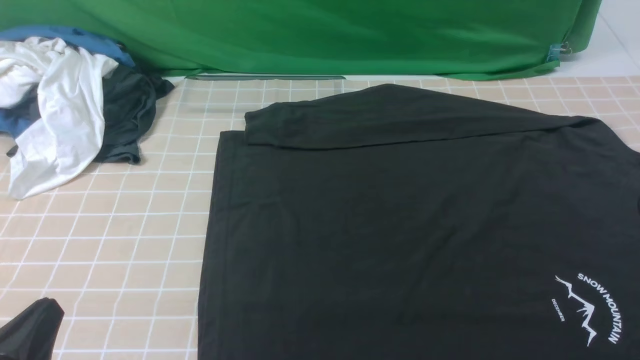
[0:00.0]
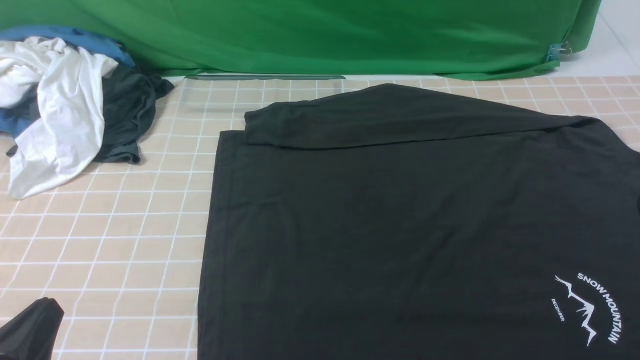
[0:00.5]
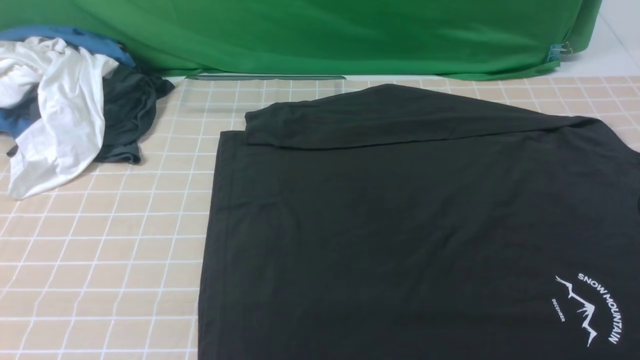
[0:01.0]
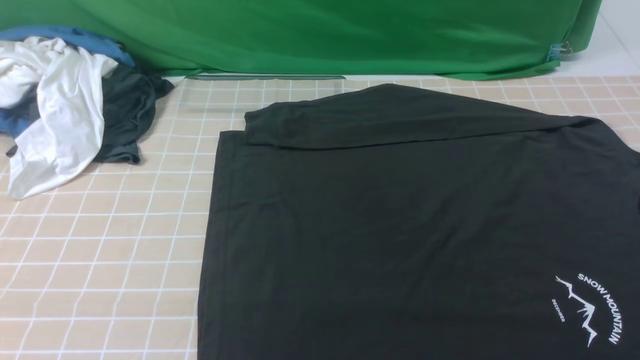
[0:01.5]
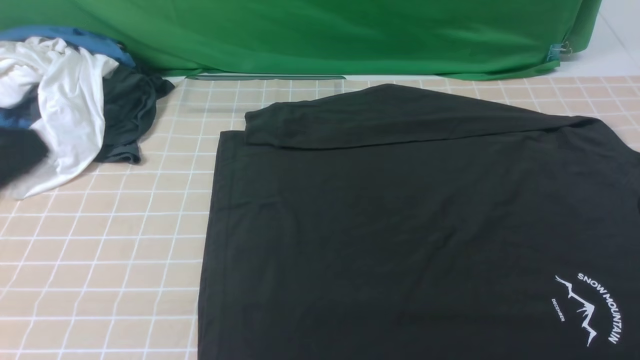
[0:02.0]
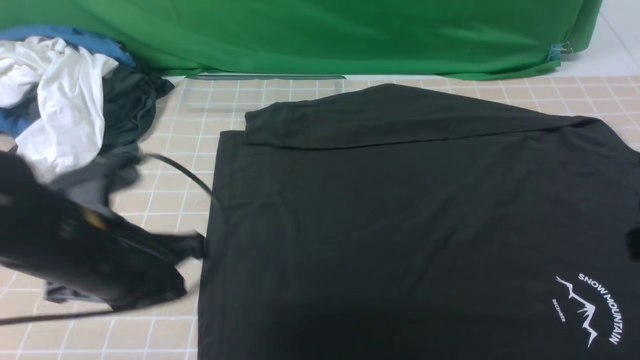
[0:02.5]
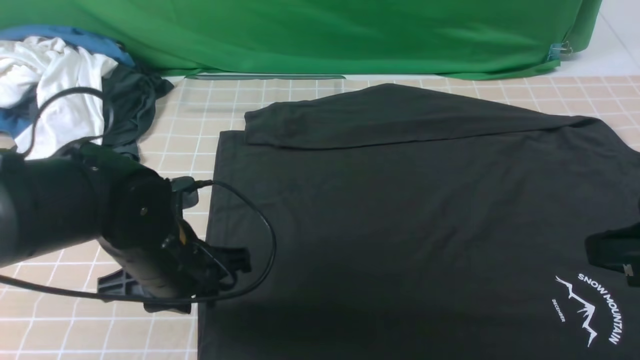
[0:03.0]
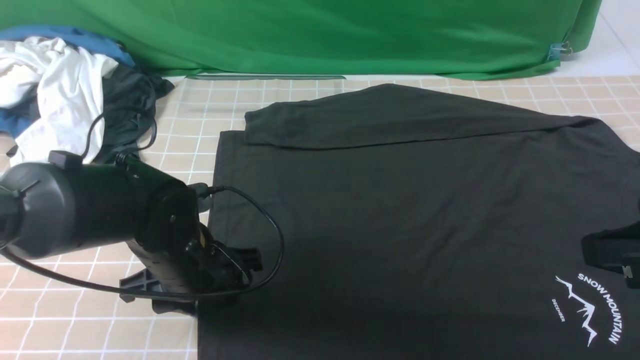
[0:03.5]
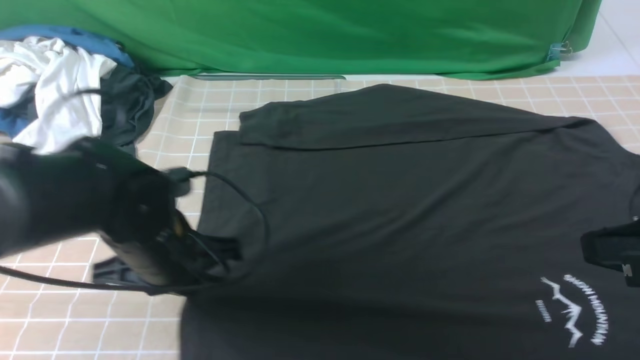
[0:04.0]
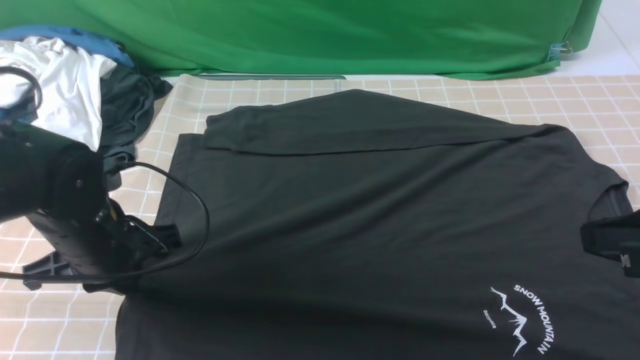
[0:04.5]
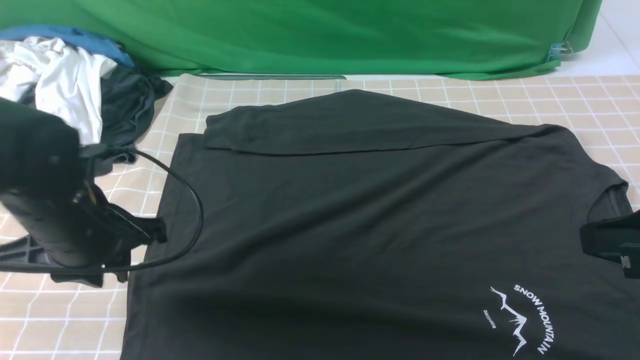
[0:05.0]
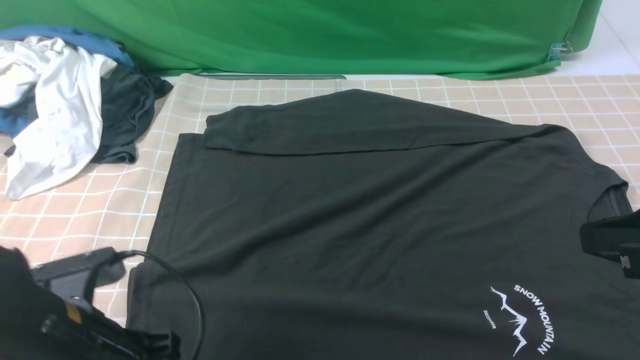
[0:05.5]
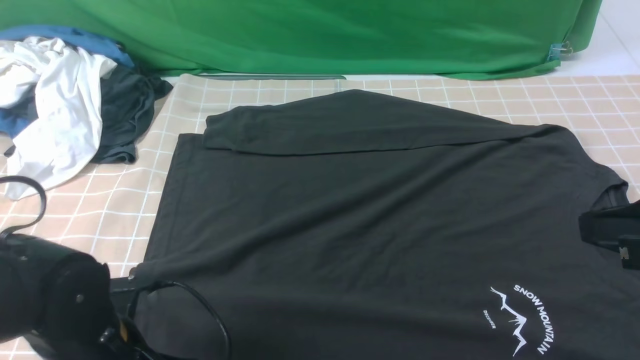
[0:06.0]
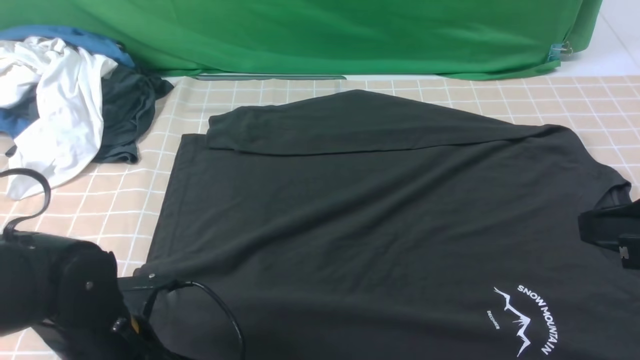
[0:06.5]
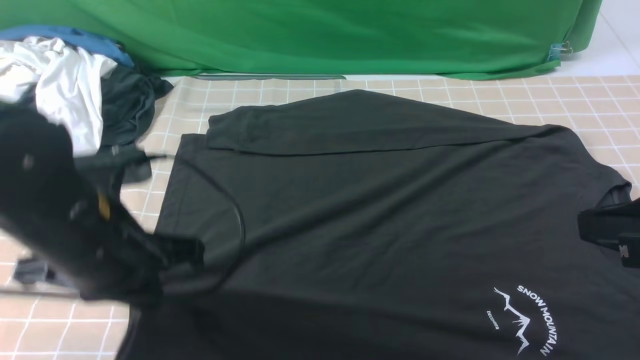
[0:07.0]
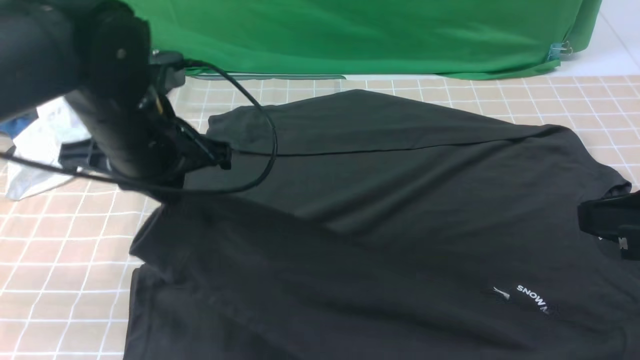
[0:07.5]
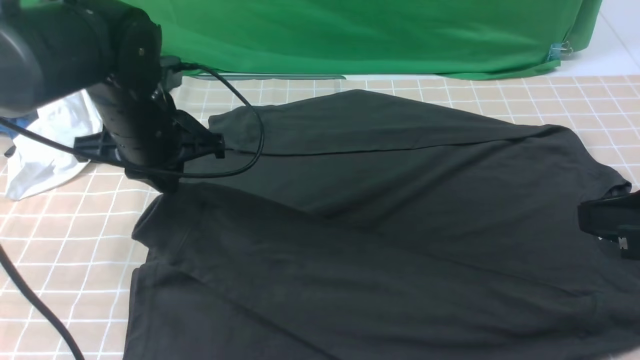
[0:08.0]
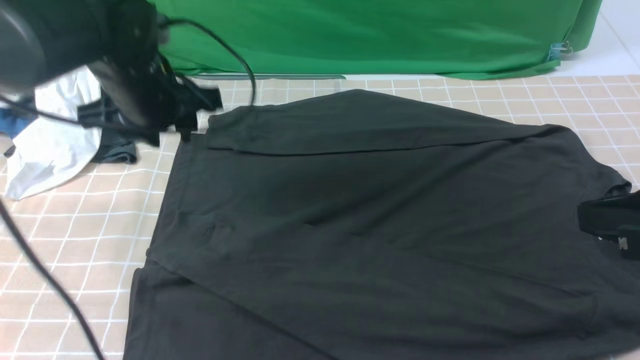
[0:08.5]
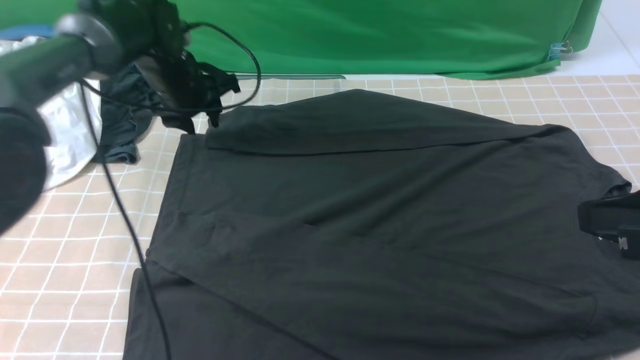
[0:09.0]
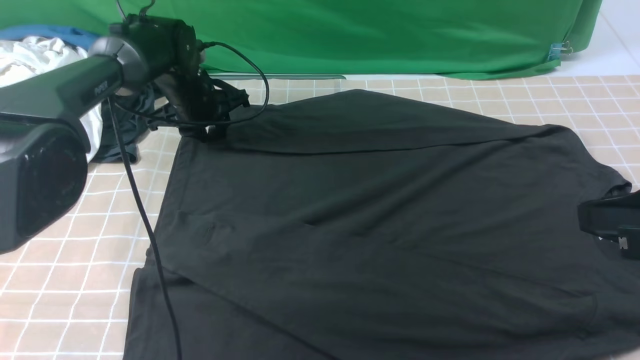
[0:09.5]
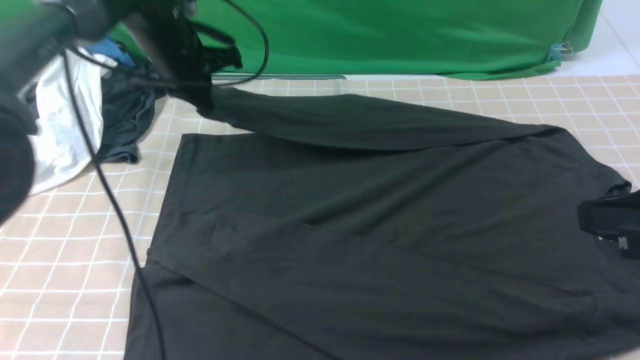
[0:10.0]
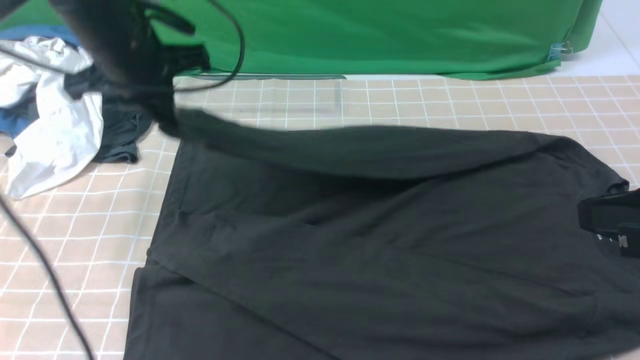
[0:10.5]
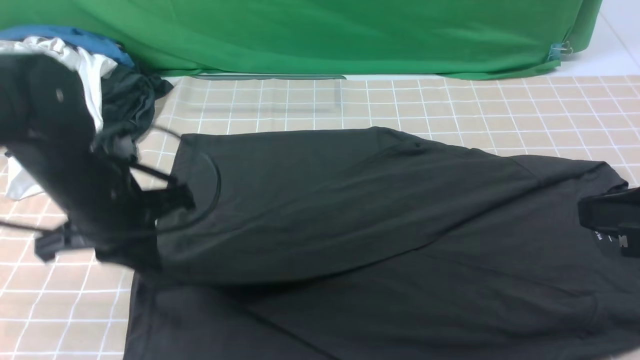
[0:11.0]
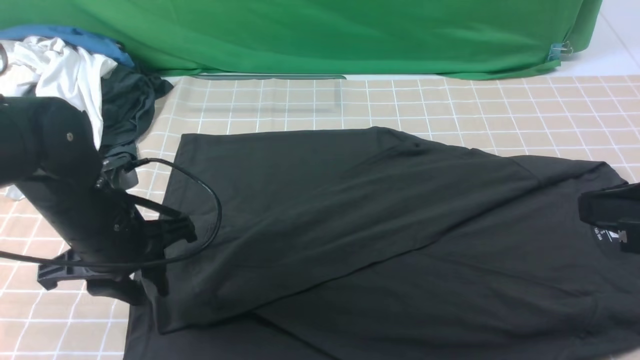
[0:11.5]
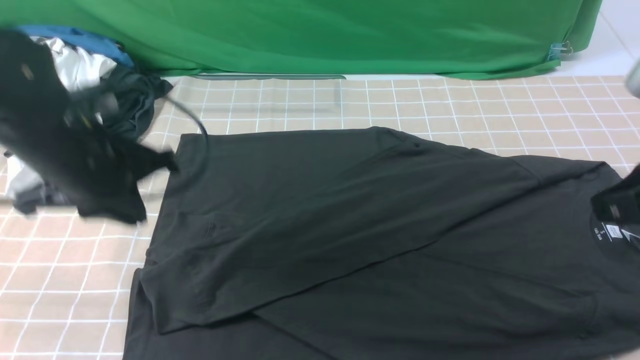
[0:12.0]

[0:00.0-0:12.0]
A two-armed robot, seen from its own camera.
Step, 0:00.0 to 0:06.0: use the left arm to clamp the cuff closest to it.
Step, 0:06.5 to 0:08.0: use the left arm to drag and place the cuff at the centered position on the left edge of the fabric.
Step, 0:08.5 to 0:09.5: use the left arm to clamp the cuff farthest from it.
Step, 0:10.0 to 0:11.5: use the left arm to drag and drop the cuff onto the cuff closest to the left arm.
0:00.0 to 0:02.0: The left gripper goes about 20 cm upward and forward.
0:02.0 to 0:04.0: The right gripper goes roughly 10 cm forward and downward, while the left gripper is displaced downward and forward by some 20 cm, and opens, then closes once more.
0:04.0 to 0:06.0: The left gripper goes about 10 cm backward, and opens up.
0:06.0 to 0:08.0: The left gripper goes about 20 cm forward and upward, and closes.
0:08.0 to 0:10.0: The left gripper heads forward, covering roughly 15 cm, and opens and closes again.
0:10.0 to 0:12.0: The left gripper shifts approximately 20 cm backward, and opens, then closes once more.

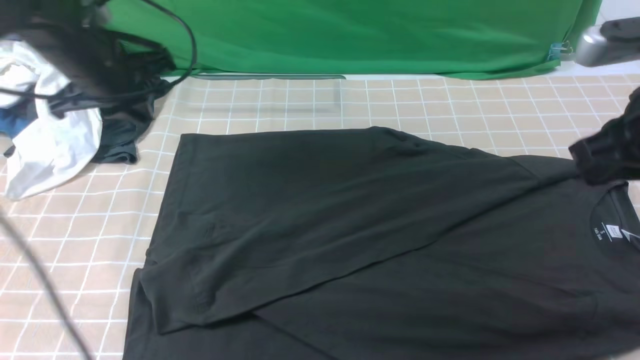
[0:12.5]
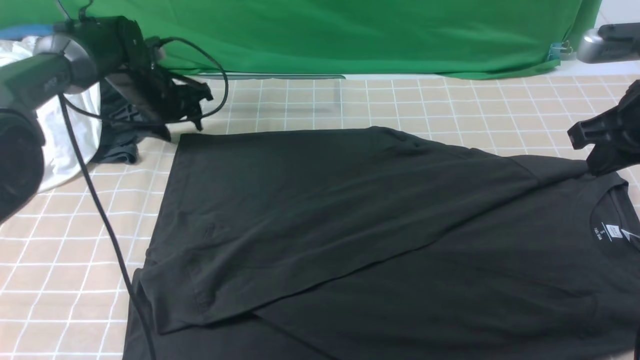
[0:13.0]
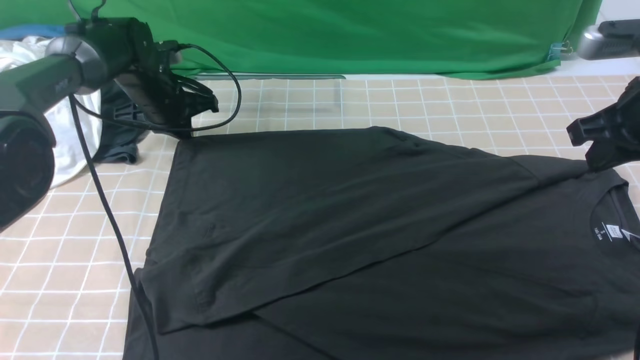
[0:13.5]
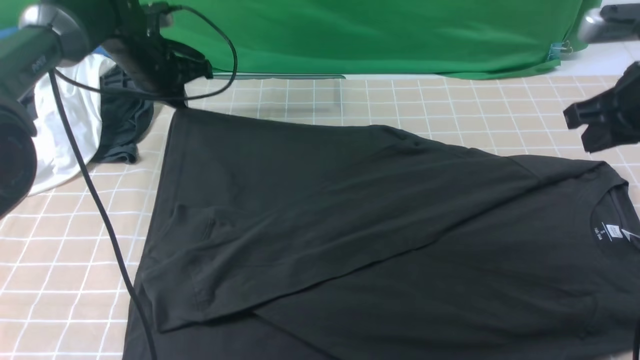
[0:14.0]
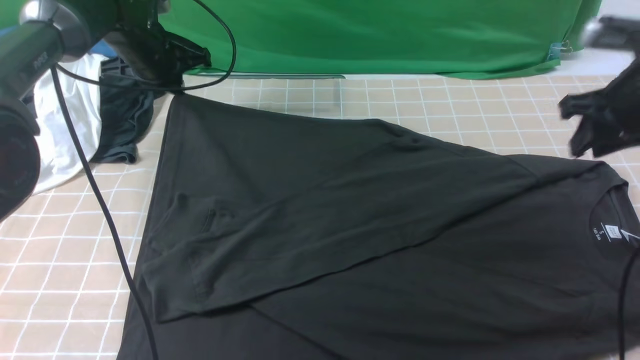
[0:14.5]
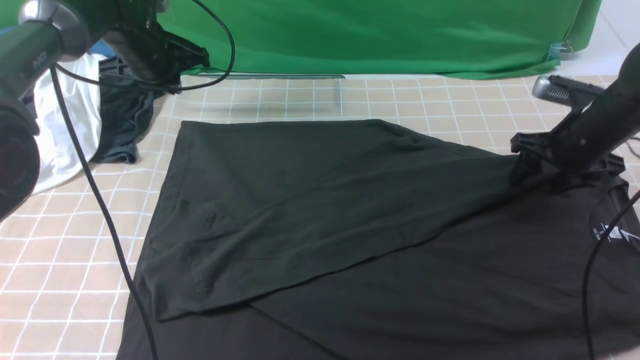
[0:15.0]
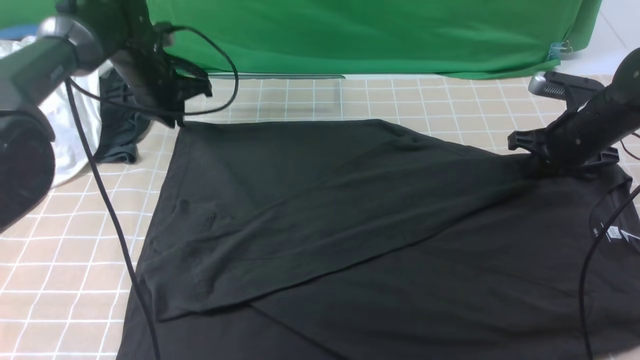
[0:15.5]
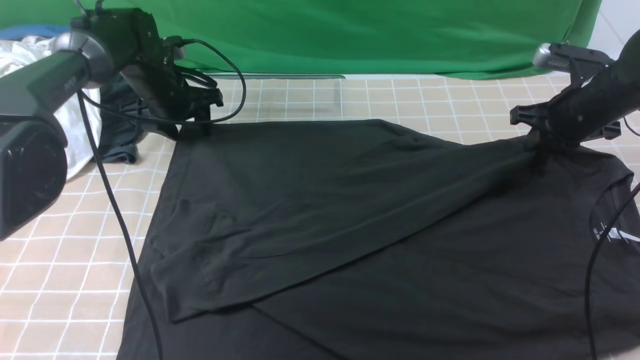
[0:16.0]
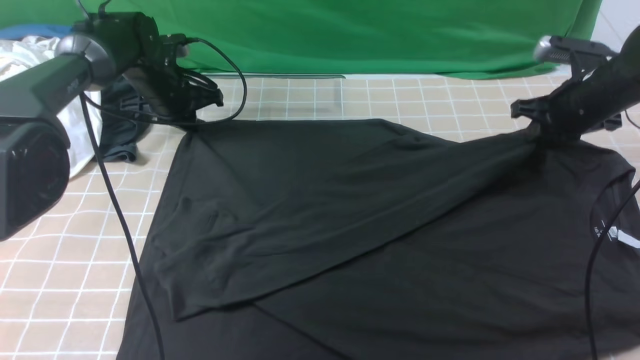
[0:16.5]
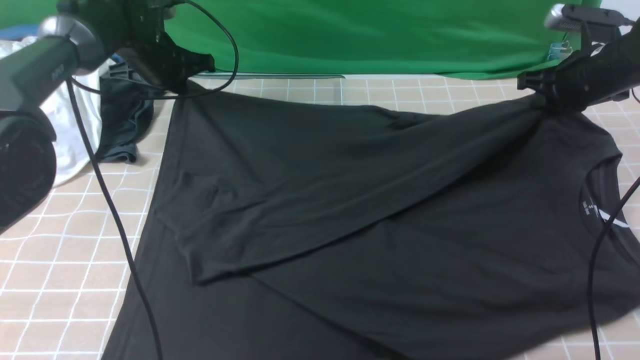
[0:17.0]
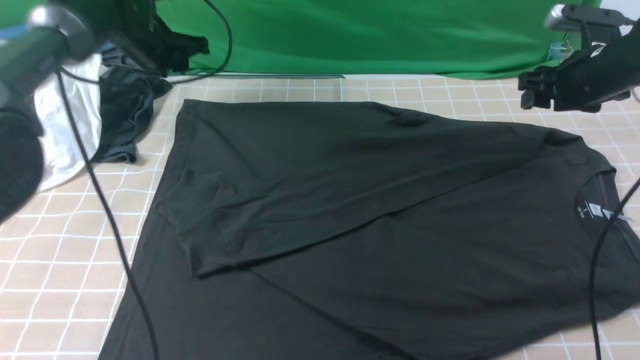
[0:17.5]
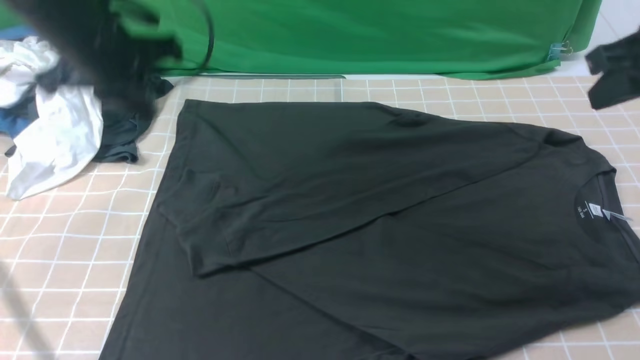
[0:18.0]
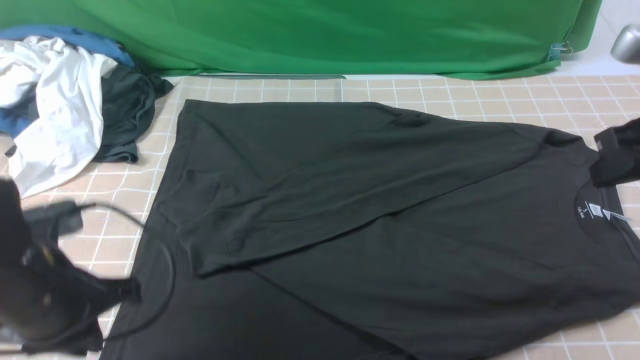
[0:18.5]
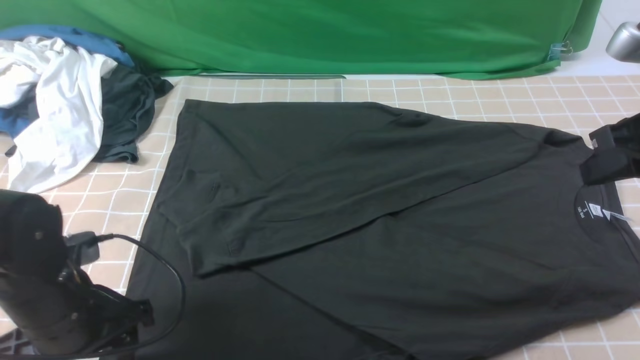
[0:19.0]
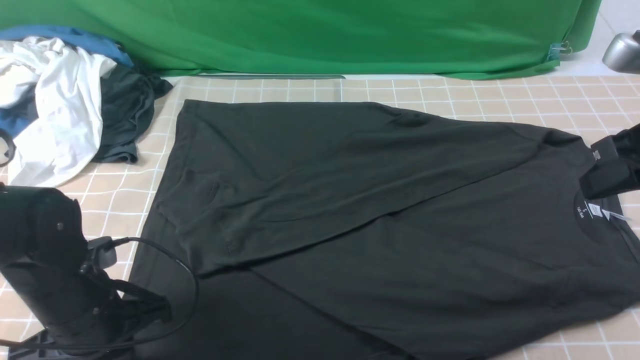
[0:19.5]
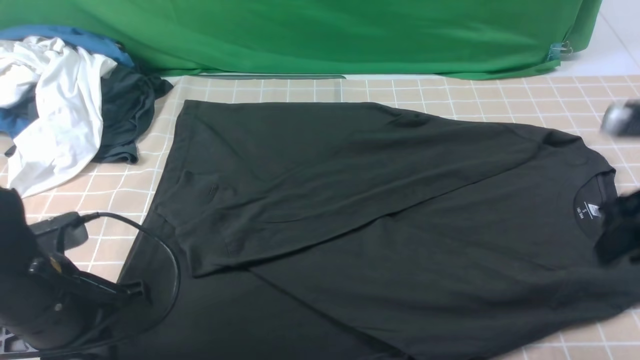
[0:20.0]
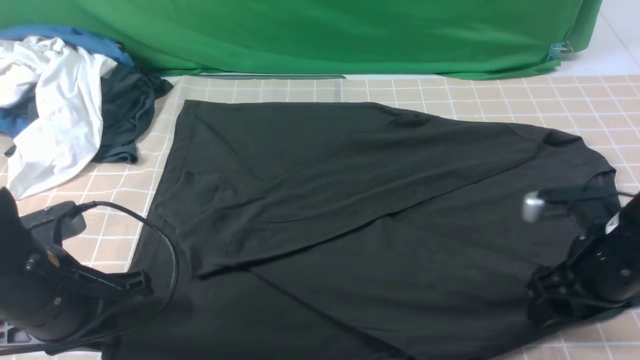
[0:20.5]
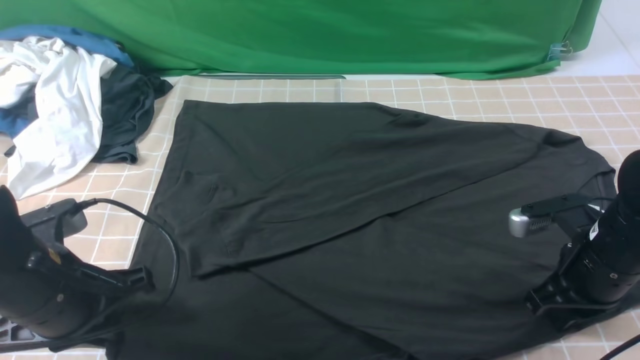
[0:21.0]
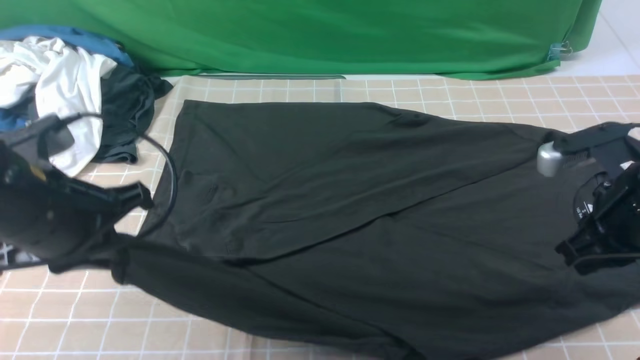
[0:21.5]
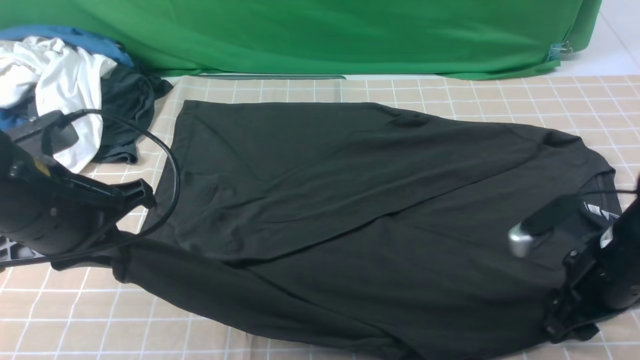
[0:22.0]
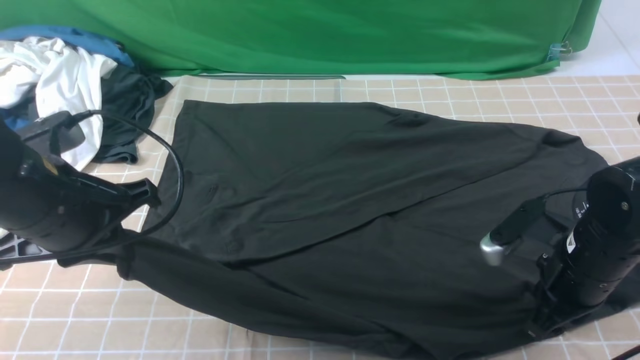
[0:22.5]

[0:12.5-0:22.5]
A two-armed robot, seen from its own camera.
0:12.5 to 0:14.5: The left gripper travels forward by about 10 cm, travels downward and back again, about 10 cm each way, and opens, then closes once more; the right gripper heads forward and downward, covering approximately 10 cm, and opens up.
0:14.5 to 0:16.5: The right gripper shifts some 10 cm forward and downward, and closes, while the left gripper changes place by about 5 cm, and opens, then closes once more.
0:16.5 to 0:18.5: The right gripper is displaced backward and upward by about 20 cm, and opens, then closes again. Meanwhile the left gripper goes about 30 cm backward.
0:18.5 to 0:20.5: The right gripper heads downward, covering approximately 15 cm, and opens up, while the left gripper opens, then closes once more.
0:20.5 to 0:22.5: The right gripper closes up. The left gripper shifts approximately 5 cm upward.
